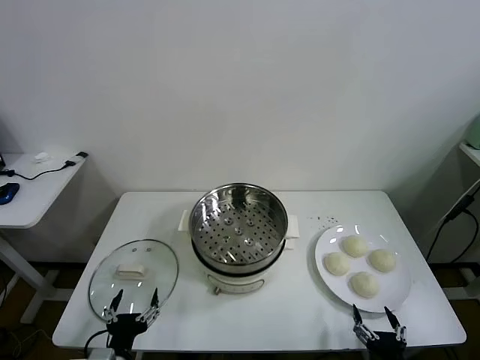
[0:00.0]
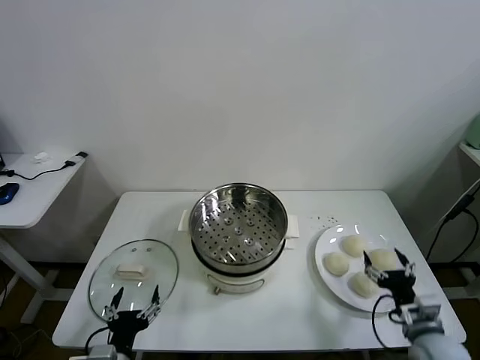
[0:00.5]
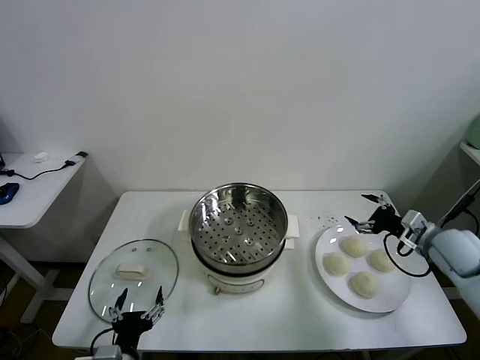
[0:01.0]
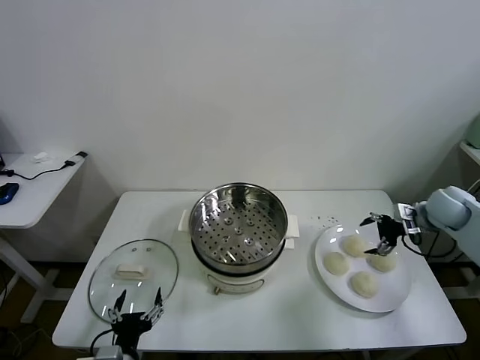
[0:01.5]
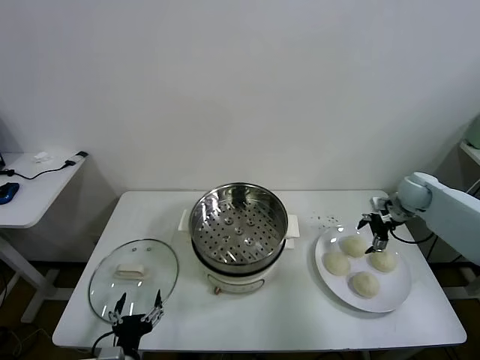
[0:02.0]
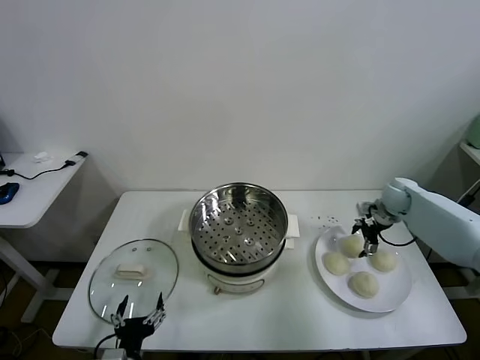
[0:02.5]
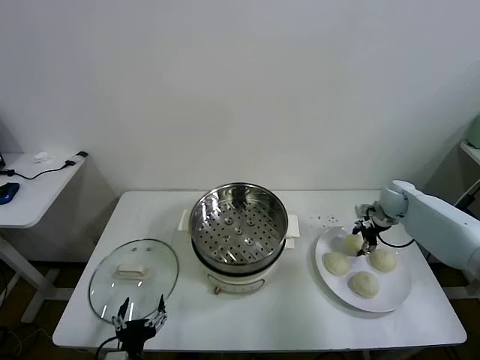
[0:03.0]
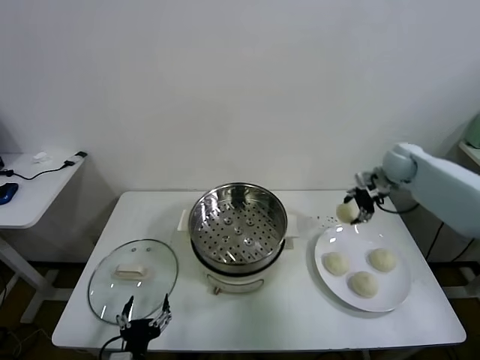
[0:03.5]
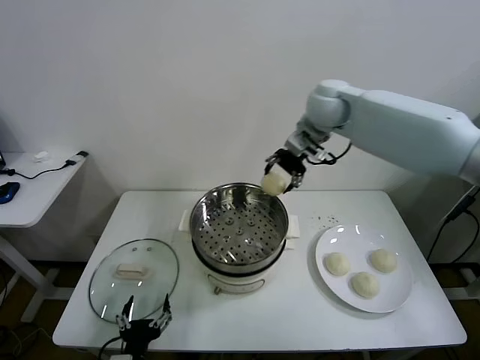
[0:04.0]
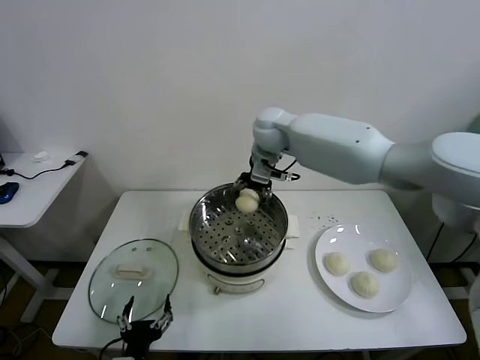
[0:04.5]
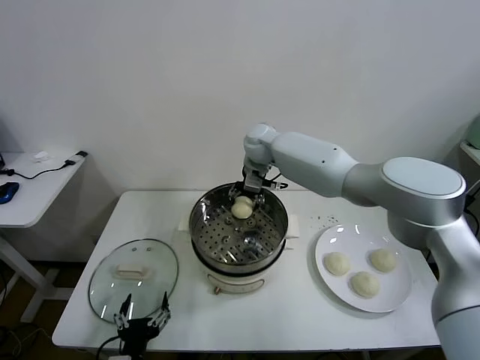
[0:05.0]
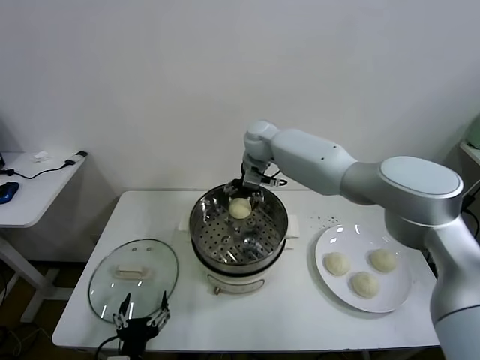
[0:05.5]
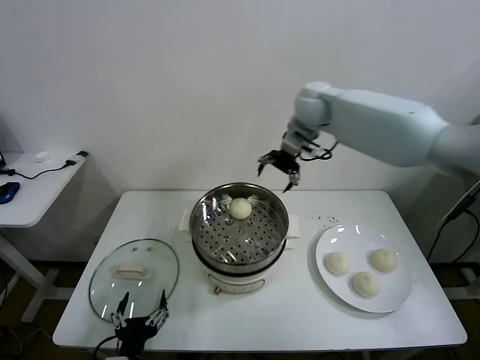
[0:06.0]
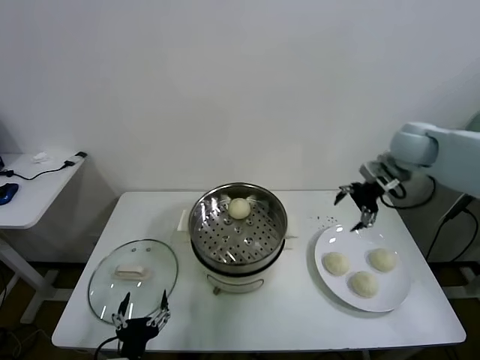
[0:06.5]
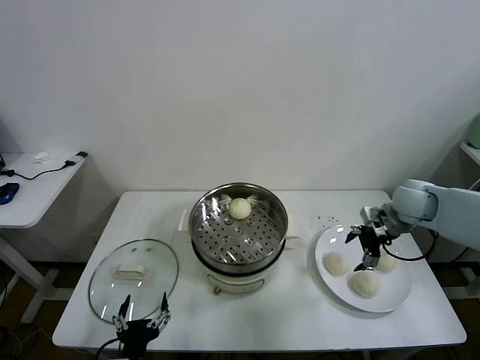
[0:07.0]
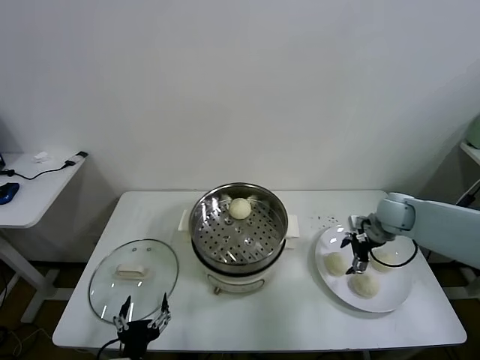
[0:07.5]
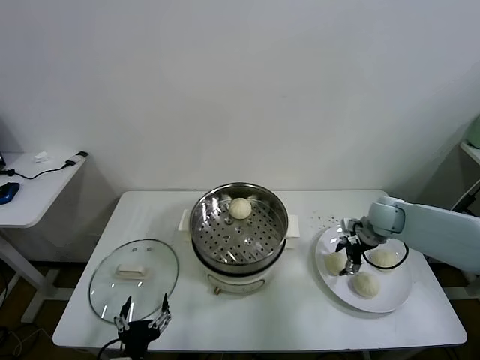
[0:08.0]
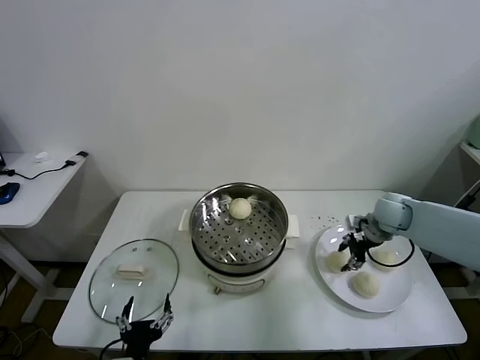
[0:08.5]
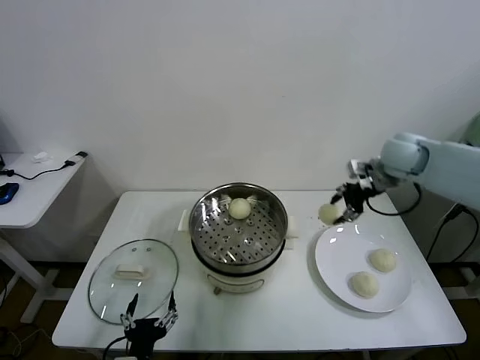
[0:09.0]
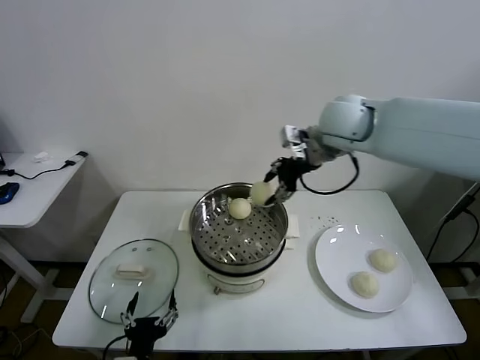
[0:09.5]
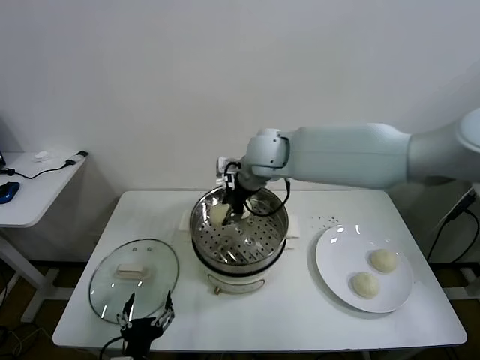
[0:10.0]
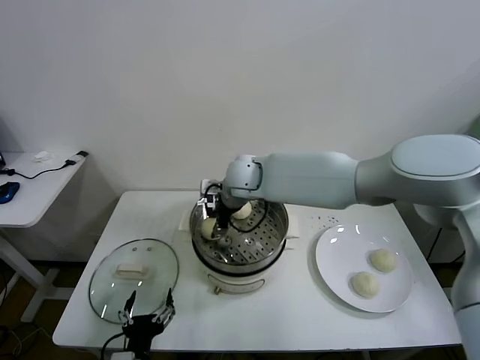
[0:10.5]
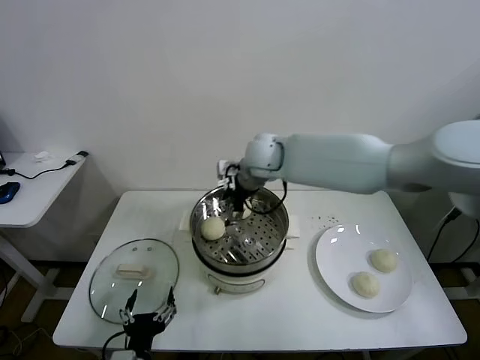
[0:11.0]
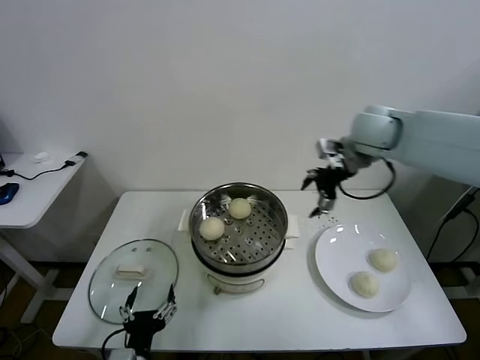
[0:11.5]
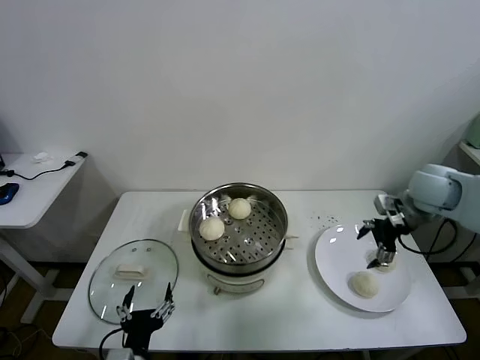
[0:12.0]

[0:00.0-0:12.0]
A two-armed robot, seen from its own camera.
Task of the whole recording: take steamed baozi put them in steamer.
Step, 0:00.0 to 0:02.5: Grasp the baozi in the plate with right gripper.
Step, 0:03.0 to 0:05.5: Place the baozi on the steamer with right gripper.
Step, 0:06.0 to 0:08.0: Grasp the baozi in the plate with right gripper.
Step, 0:08.5 to 0:10.5: Place the baozi on the steamer with right gripper.
0:02.0 to 0:04.0: The right gripper heads to the left and upward, covering roughly 40 cm, and closes.
0:04.0 to 0:06.0: The right gripper travels to the right by some 10 cm, and opens its fingers.
0:06.0 to 0:08.0: The right gripper goes approximately 30 cm downward and to the right, and closes up.
0:08.0 to 0:10.0: The right gripper moves to the left and upward, roughly 35 cm, and closes up.
0:10.0 to 0:12.0: The right gripper goes roughly 35 cm to the right, and opens up.

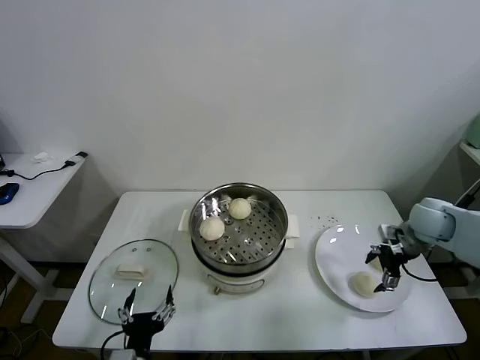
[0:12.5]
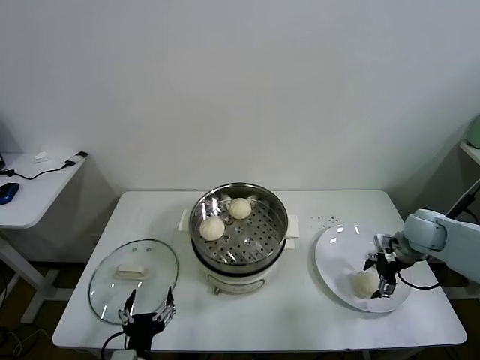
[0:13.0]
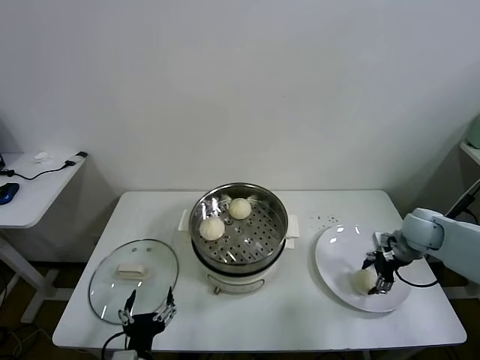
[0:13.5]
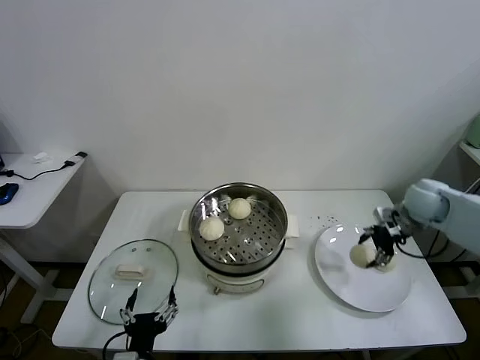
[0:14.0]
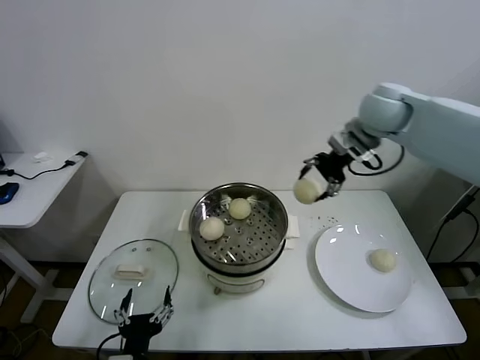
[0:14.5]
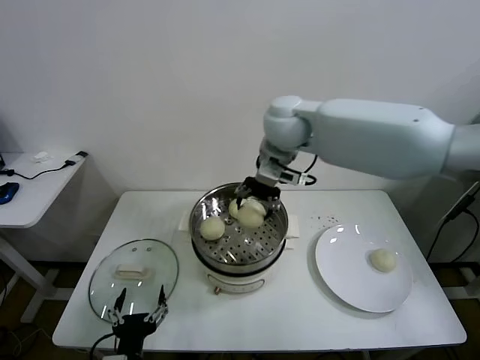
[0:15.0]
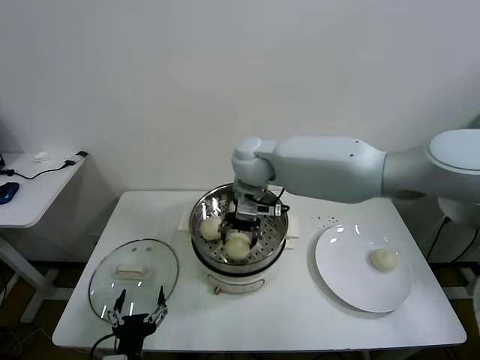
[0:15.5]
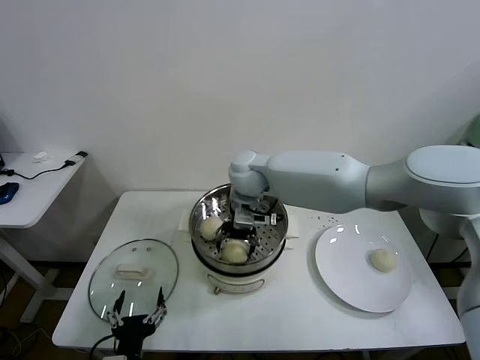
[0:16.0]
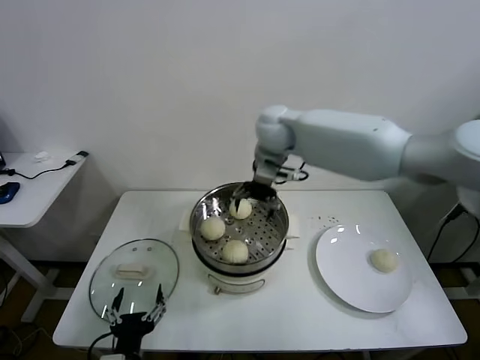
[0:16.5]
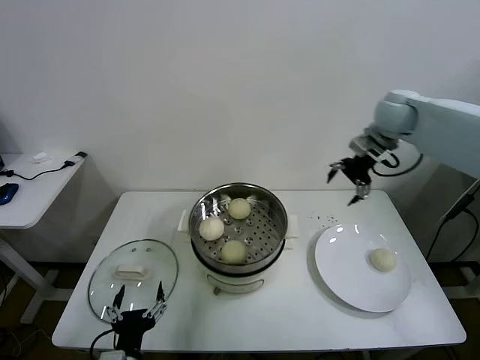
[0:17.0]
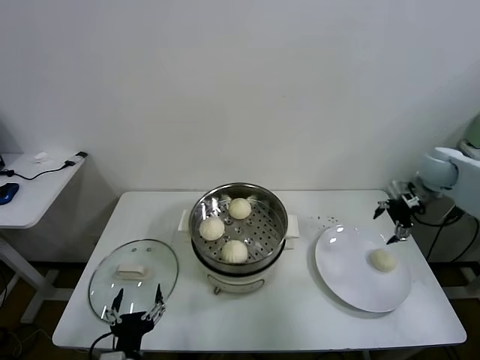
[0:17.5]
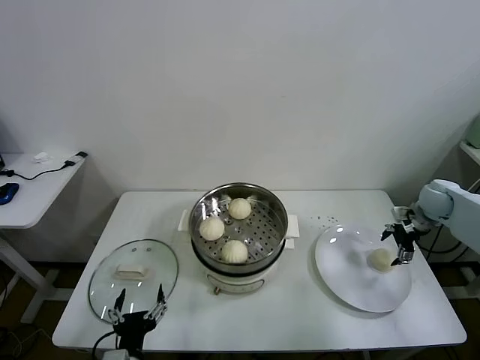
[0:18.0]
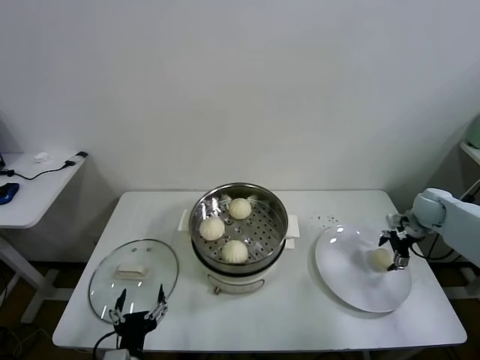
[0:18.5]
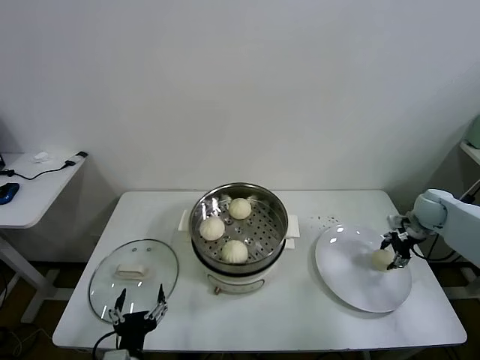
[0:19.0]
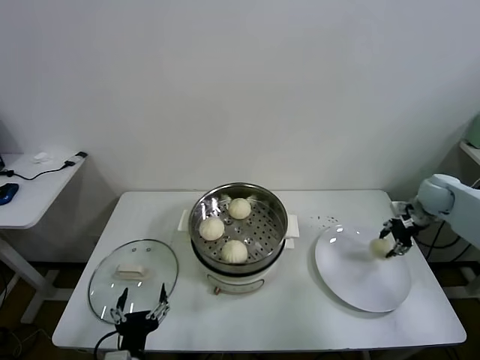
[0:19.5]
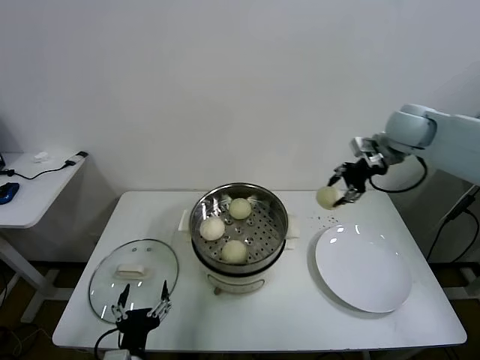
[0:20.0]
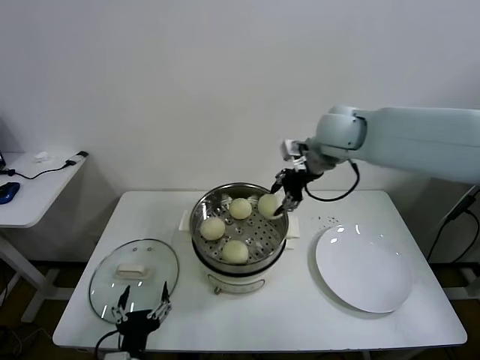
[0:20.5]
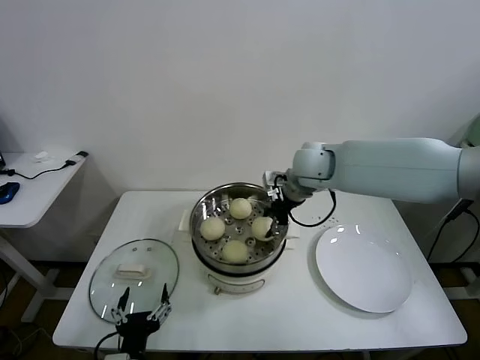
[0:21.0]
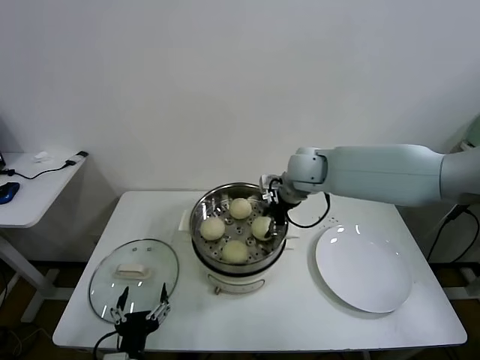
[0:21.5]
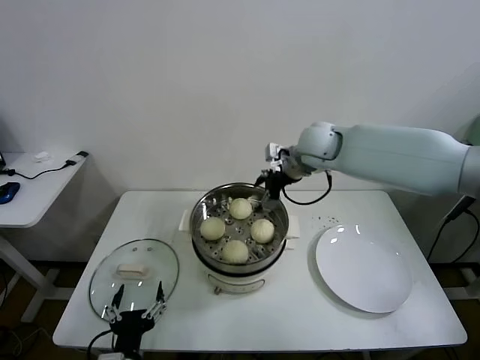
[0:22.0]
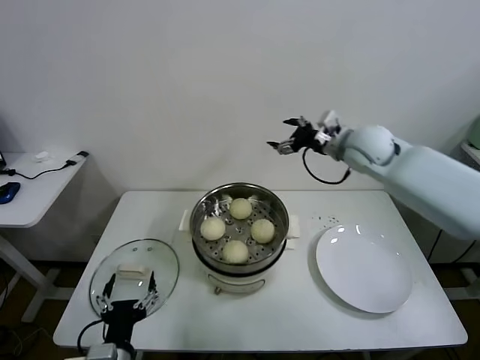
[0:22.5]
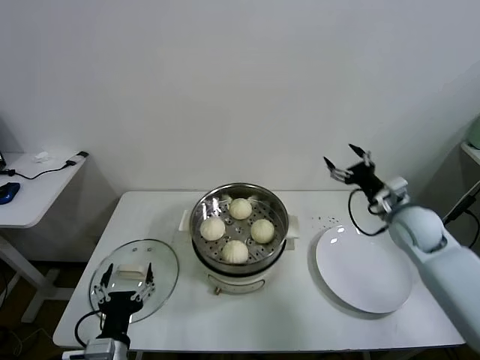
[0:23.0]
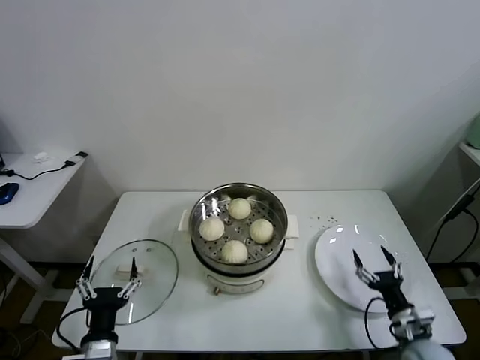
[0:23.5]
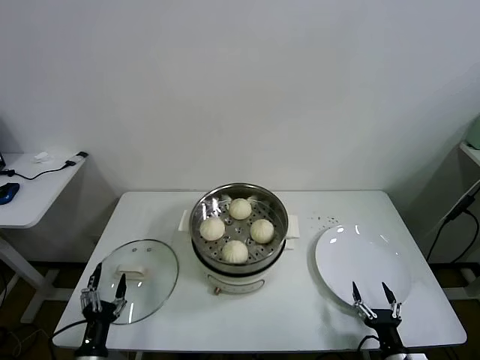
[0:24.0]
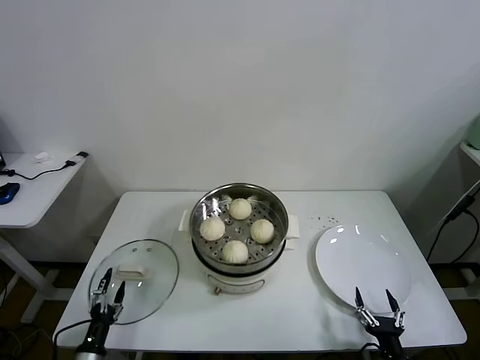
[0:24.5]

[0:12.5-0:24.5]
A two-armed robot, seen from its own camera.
Task of the whole recording: take steamed baozi put them in steamer.
Step, 0:13.5 to 0:16.0: Place the baozi on the steamer with right gripper.
Step, 0:16.5 to 0:18.5: Grasp the baozi in the plate with right gripper.
Step, 0:19.0 to 0:21.5: Place the baozi on the steamer with right gripper.
0:12.5 to 0:14.5: The right gripper goes about 30 cm upward and to the left, and closes.
0:14.5 to 0:16.5: The right gripper travels to the left by approximately 15 cm, and opens.
0:16.5 to 0:18.5: The right gripper heads to the right and downward, covering about 50 cm.
0:18.5 to 0:20.5: The right gripper shifts about 40 cm to the left and upward, and closes.
0:20.5 to 0:22.5: The right gripper moves to the right and downward, approximately 10 cm, and opens up.
0:22.5 to 0:24.5: The right gripper goes about 60 cm backward and downward. The left gripper heads downward and to the left, covering about 20 cm.

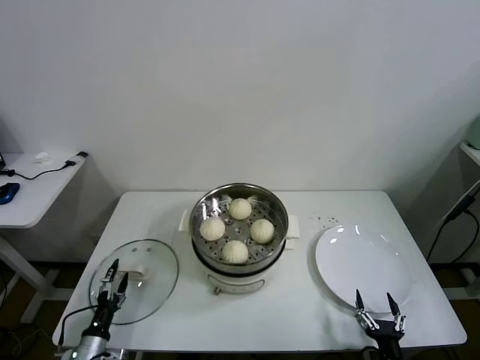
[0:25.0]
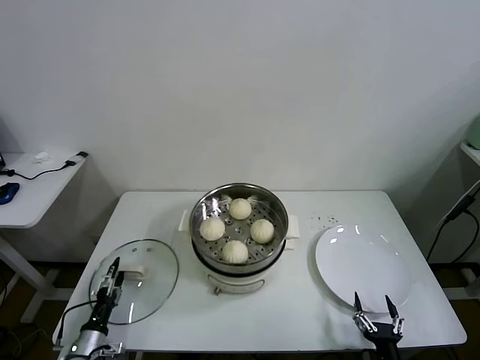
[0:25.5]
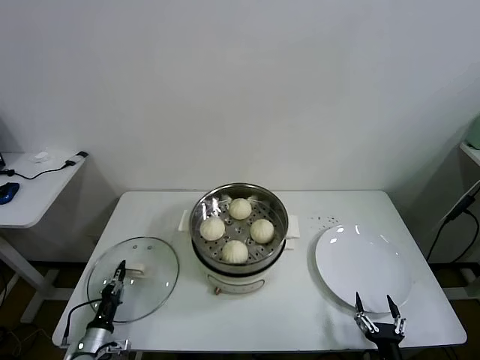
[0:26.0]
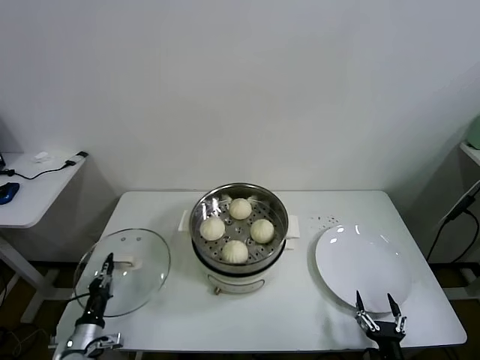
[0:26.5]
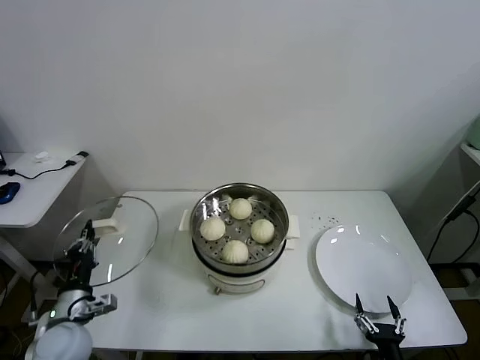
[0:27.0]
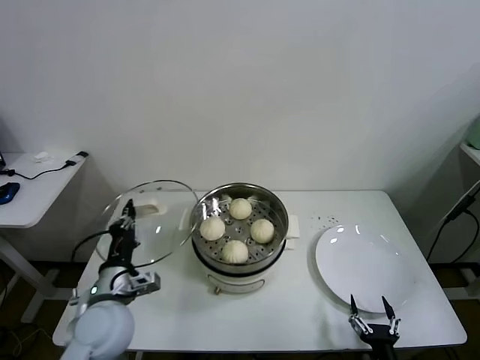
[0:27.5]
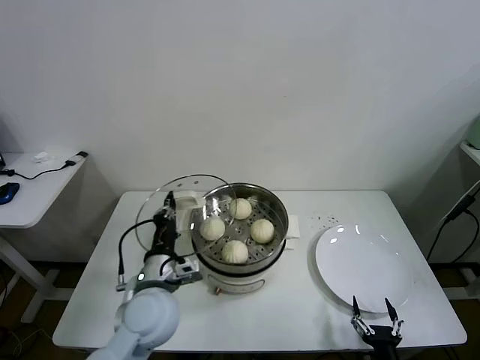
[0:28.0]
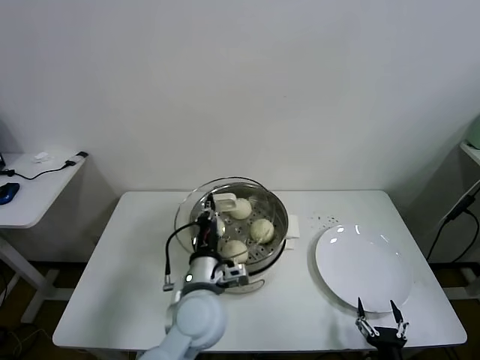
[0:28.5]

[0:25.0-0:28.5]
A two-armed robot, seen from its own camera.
Task of the whole recording: take steamed baozi put them in steamer.
0:25.0 to 0:27.0: The left gripper shifts about 15 cm upward, and closes its fingers.
0:27.0 to 0:28.5: The left gripper is displaced to the right by roughly 25 cm.
